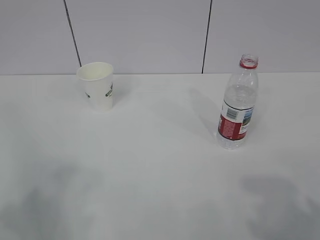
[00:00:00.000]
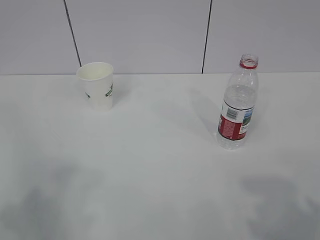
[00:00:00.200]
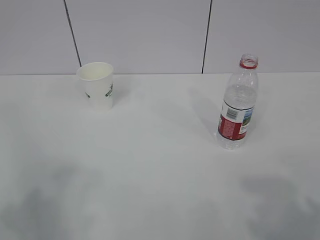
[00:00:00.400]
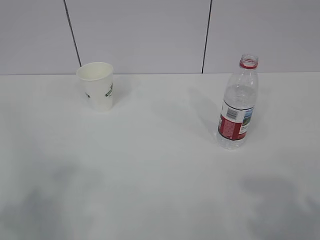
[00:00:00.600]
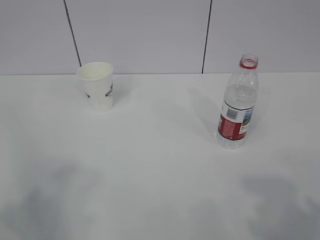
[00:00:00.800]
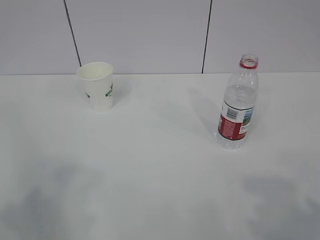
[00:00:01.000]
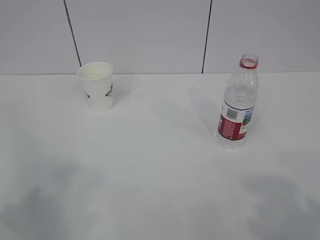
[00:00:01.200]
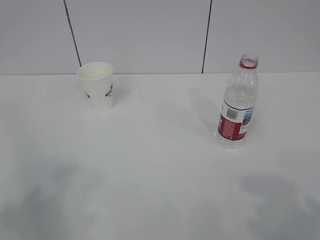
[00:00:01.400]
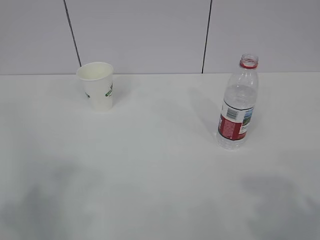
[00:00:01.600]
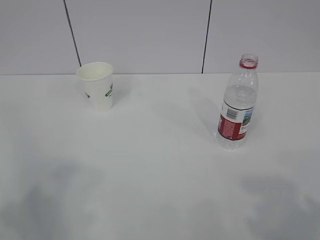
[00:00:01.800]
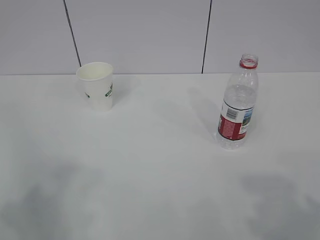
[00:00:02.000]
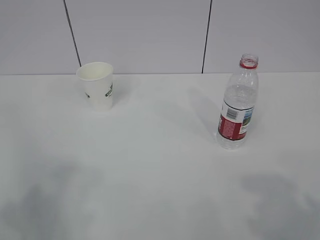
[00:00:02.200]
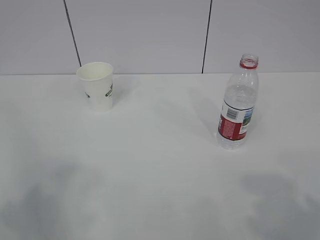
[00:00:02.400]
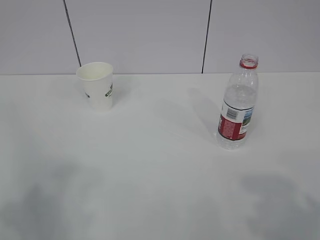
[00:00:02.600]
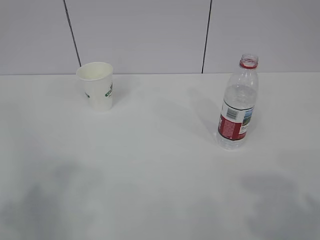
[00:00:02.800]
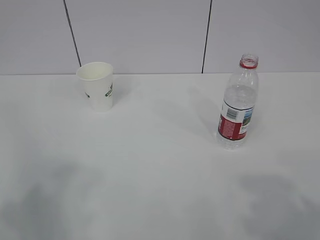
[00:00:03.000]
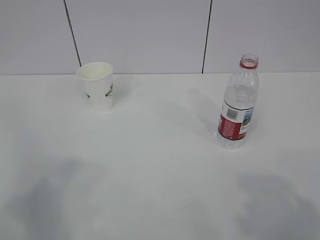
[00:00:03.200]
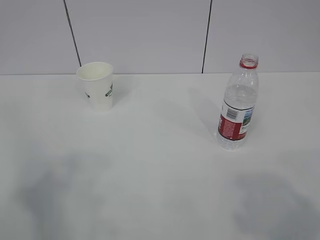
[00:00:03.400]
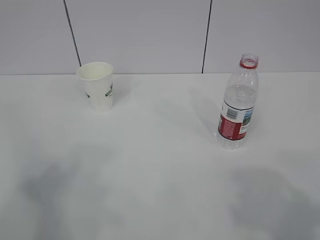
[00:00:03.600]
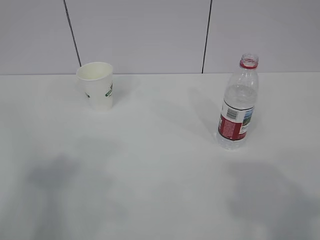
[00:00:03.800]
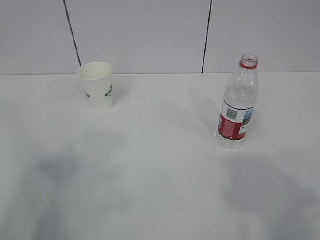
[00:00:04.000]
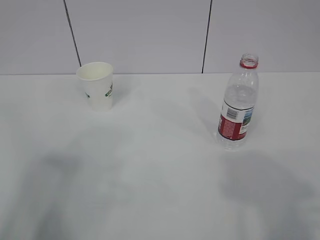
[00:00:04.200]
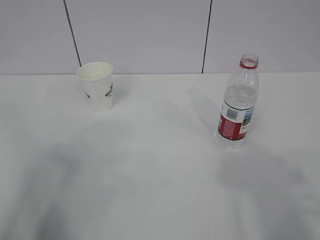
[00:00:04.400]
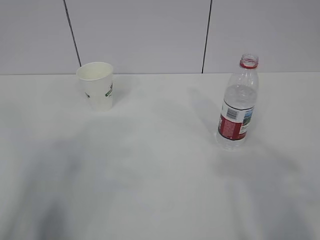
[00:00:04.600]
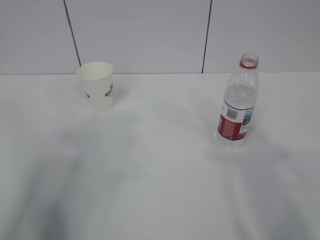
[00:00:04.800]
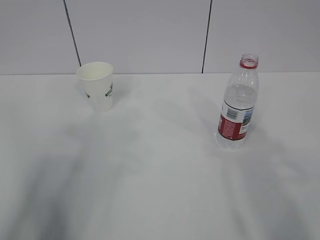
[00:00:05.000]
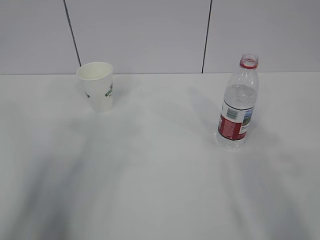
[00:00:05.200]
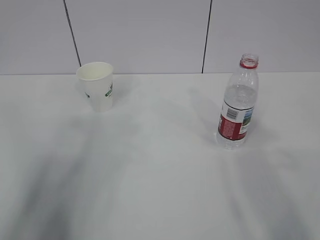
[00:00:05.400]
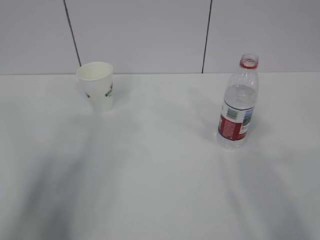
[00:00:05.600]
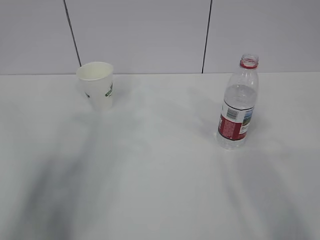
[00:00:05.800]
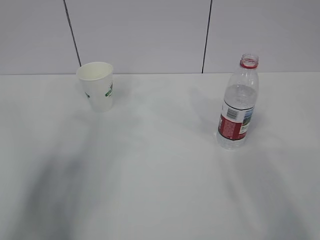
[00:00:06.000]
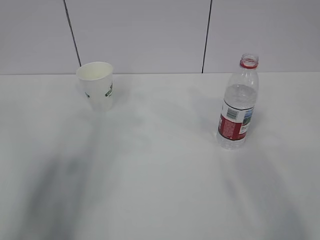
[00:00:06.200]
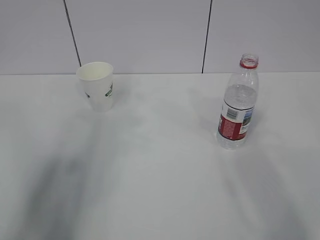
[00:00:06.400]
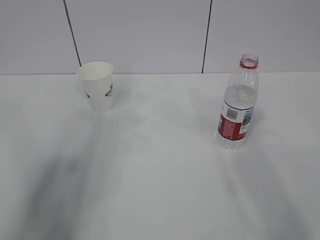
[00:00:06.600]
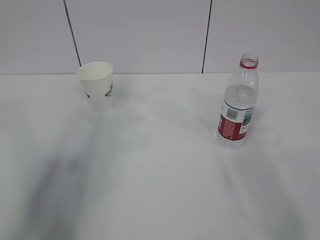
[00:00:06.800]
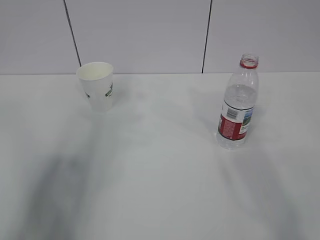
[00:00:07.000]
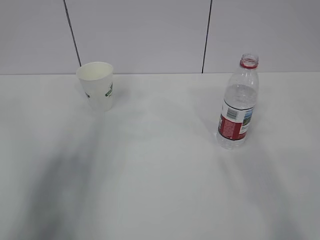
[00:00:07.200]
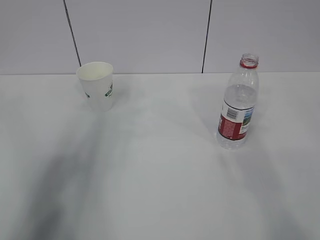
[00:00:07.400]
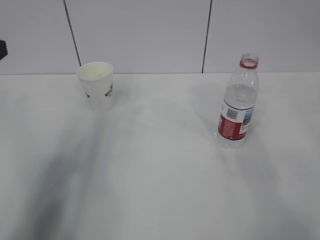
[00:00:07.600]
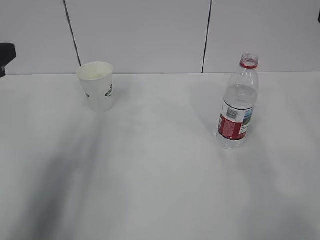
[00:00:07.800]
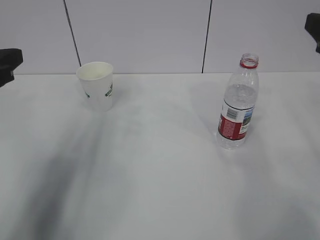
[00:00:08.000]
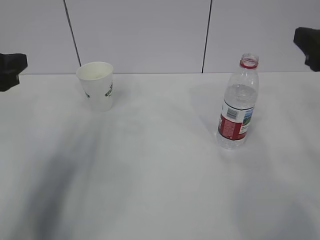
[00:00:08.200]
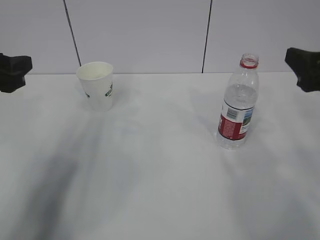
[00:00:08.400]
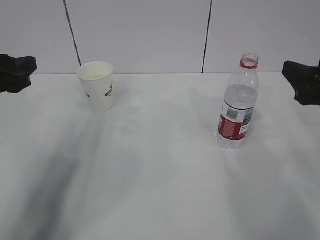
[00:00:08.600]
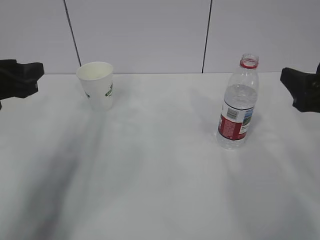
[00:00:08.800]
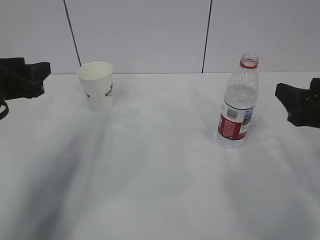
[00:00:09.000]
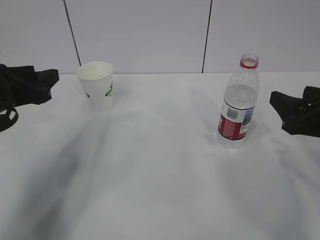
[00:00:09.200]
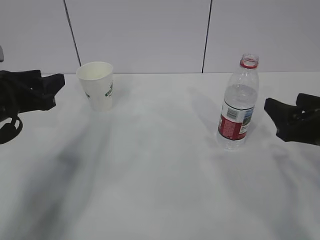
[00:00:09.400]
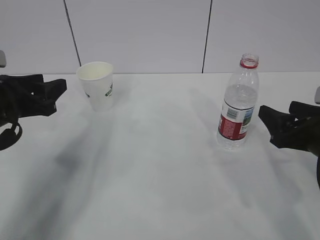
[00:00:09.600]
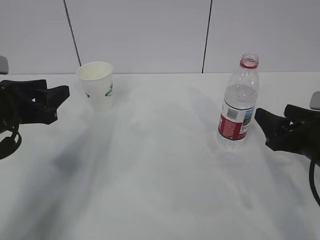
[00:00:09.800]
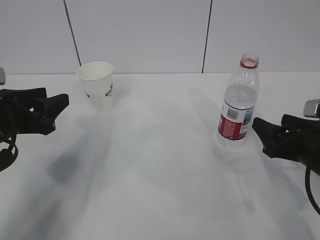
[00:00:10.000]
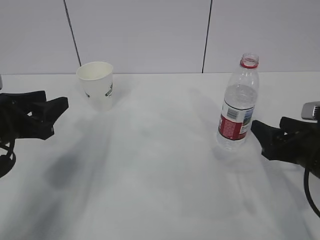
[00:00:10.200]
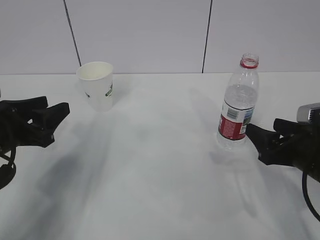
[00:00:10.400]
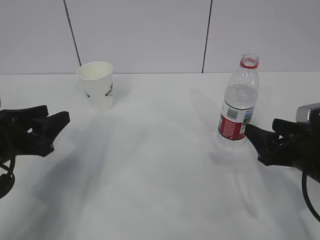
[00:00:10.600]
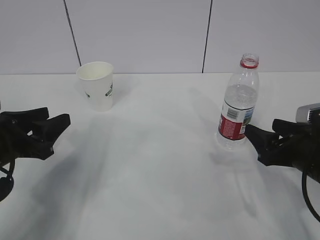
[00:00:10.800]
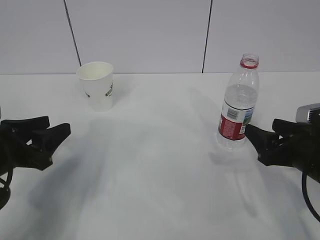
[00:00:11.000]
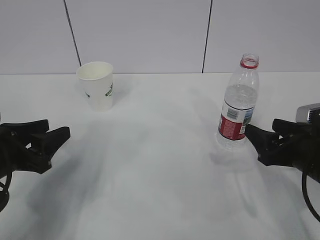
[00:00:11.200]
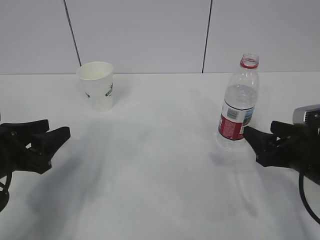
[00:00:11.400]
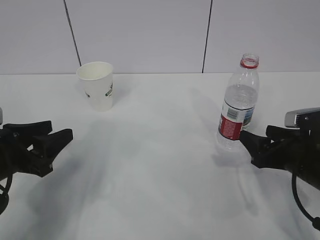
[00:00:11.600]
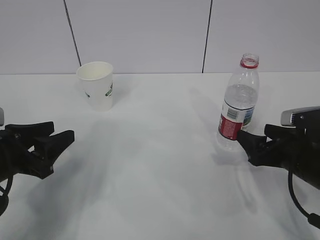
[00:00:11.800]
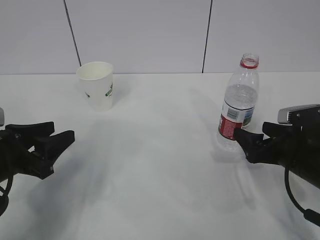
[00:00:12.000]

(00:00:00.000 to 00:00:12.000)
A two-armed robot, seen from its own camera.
00:00:01.600 - 00:00:03.000: The two grippers keep their place.
00:00:06.000 - 00:00:07.600: The left gripper moves forward, approximately 5 cm.
00:00:07.600 - 00:00:09.000: The left gripper shifts some 10 cm downward and forward; the right gripper is displaced downward by approximately 10 cm.
00:00:09.000 - 00:00:10.400: Both grippers travel together downward, roughly 5 cm.
00:00:10.400 - 00:00:12.000: The right gripper opens up.

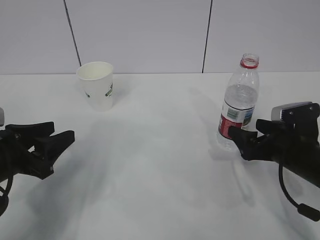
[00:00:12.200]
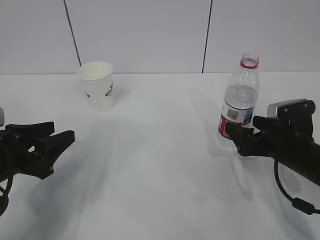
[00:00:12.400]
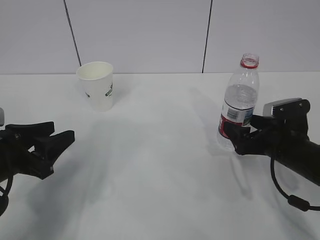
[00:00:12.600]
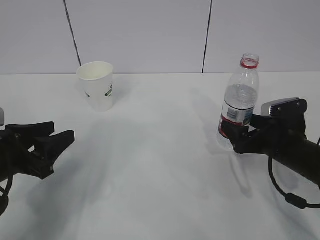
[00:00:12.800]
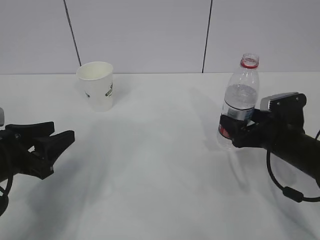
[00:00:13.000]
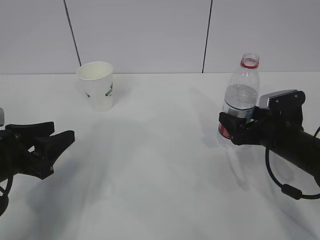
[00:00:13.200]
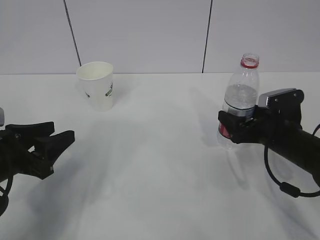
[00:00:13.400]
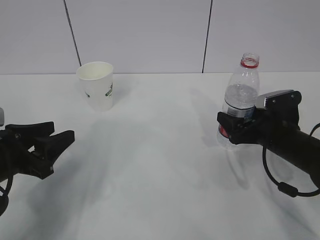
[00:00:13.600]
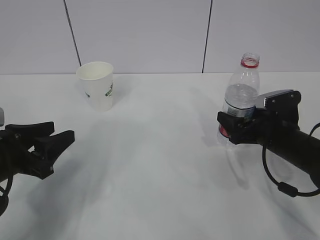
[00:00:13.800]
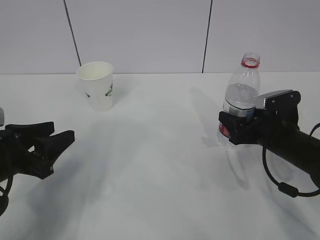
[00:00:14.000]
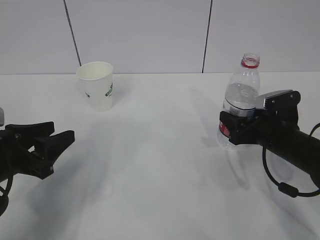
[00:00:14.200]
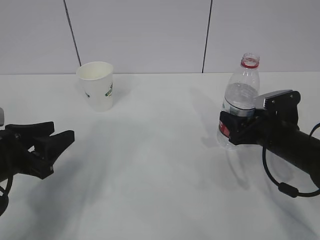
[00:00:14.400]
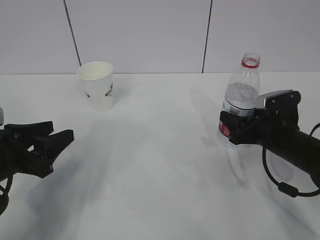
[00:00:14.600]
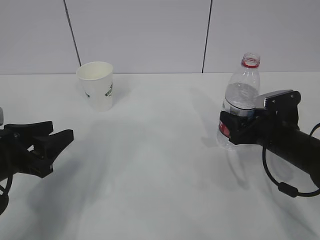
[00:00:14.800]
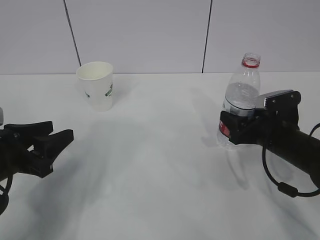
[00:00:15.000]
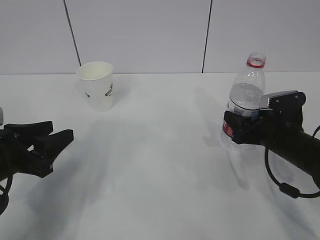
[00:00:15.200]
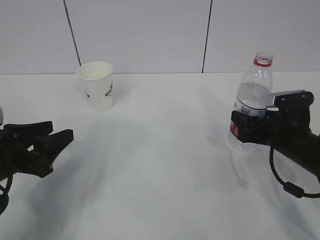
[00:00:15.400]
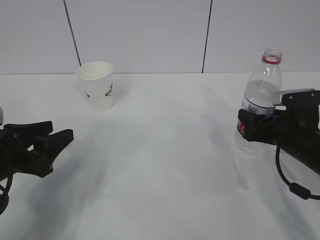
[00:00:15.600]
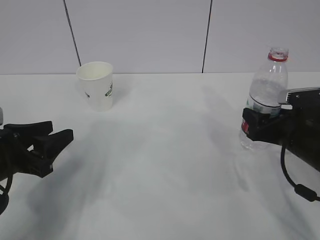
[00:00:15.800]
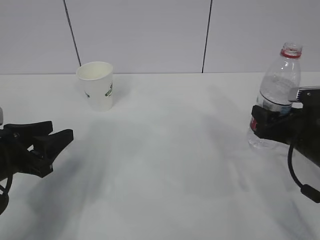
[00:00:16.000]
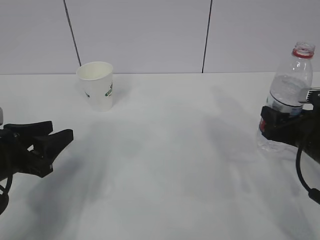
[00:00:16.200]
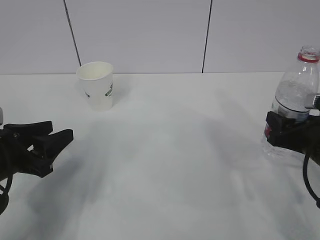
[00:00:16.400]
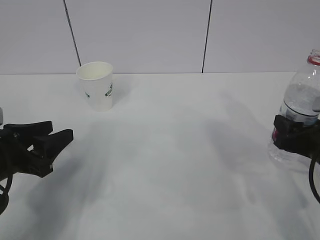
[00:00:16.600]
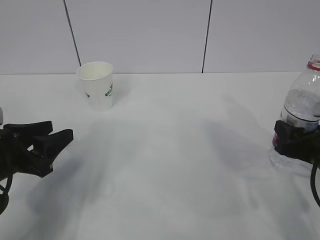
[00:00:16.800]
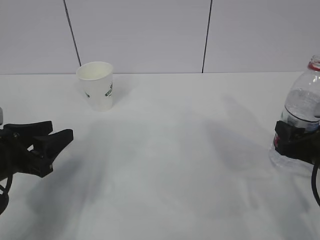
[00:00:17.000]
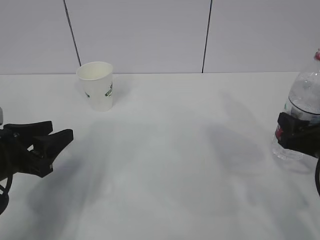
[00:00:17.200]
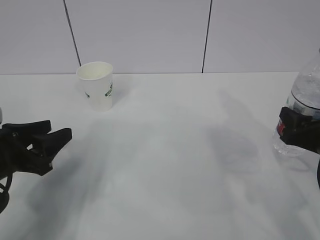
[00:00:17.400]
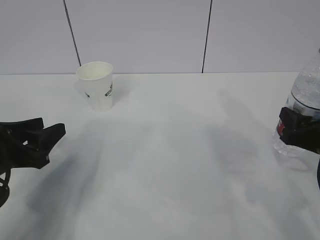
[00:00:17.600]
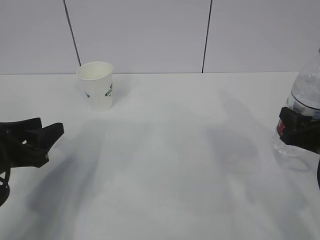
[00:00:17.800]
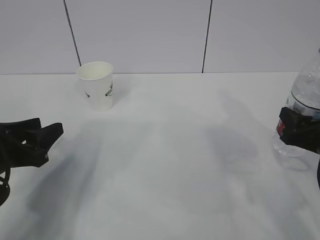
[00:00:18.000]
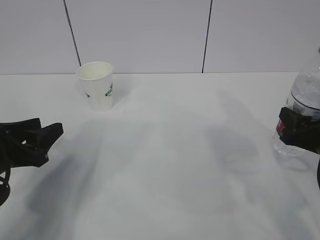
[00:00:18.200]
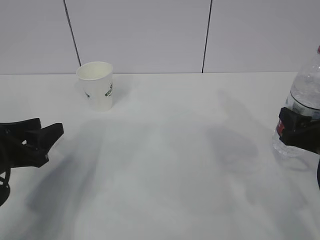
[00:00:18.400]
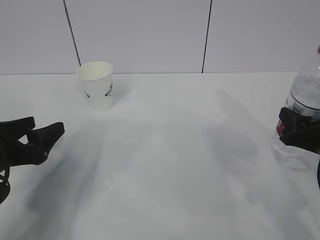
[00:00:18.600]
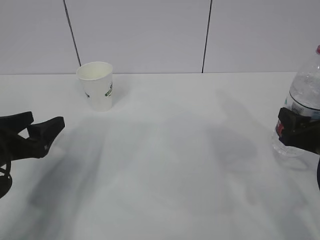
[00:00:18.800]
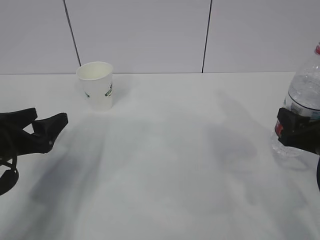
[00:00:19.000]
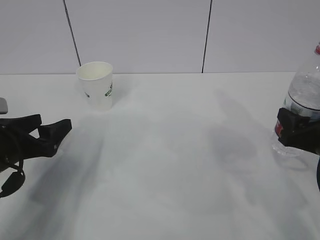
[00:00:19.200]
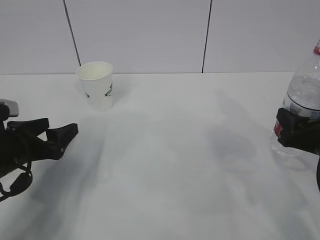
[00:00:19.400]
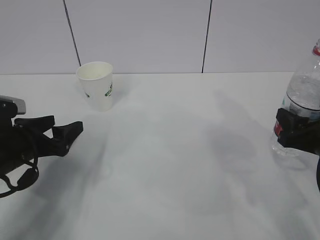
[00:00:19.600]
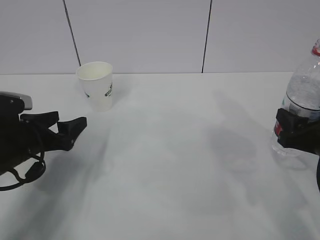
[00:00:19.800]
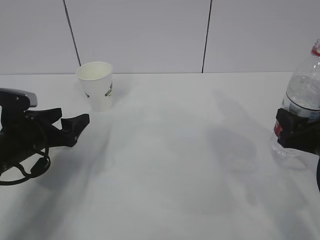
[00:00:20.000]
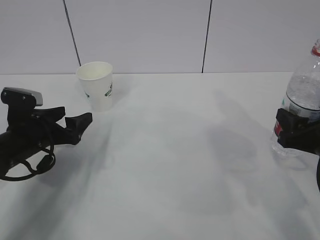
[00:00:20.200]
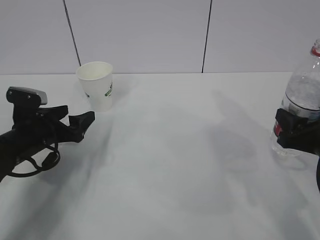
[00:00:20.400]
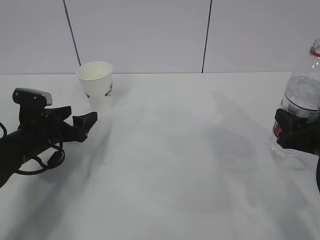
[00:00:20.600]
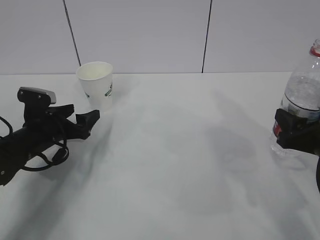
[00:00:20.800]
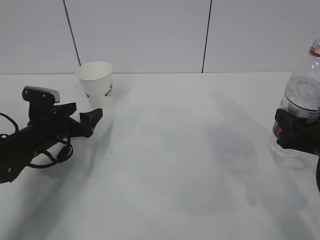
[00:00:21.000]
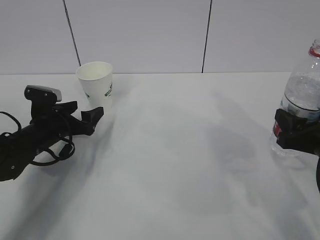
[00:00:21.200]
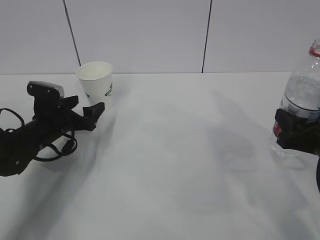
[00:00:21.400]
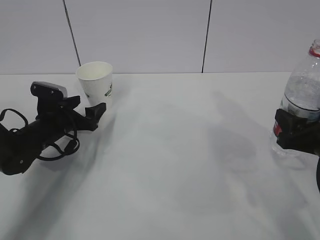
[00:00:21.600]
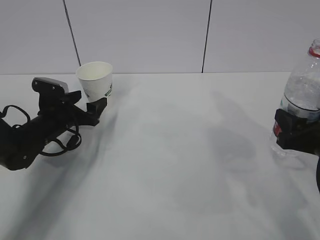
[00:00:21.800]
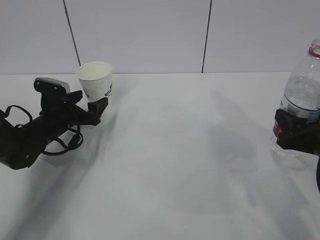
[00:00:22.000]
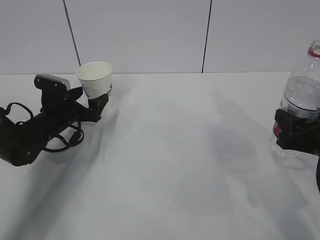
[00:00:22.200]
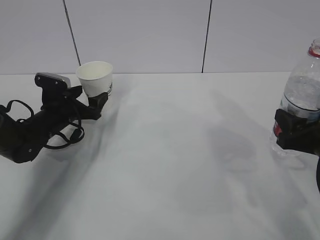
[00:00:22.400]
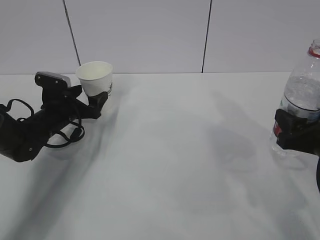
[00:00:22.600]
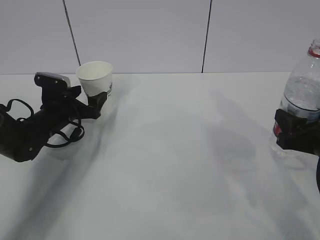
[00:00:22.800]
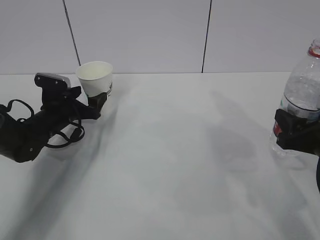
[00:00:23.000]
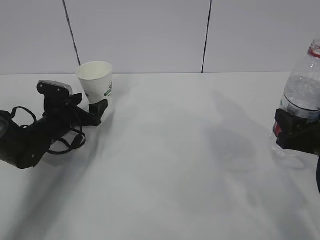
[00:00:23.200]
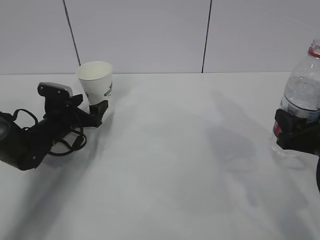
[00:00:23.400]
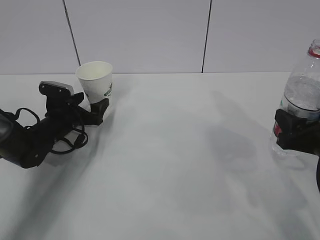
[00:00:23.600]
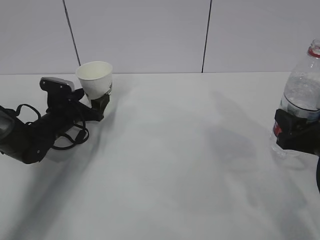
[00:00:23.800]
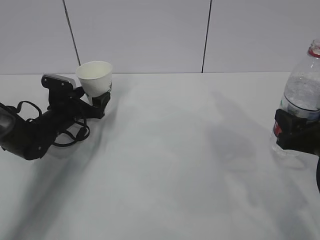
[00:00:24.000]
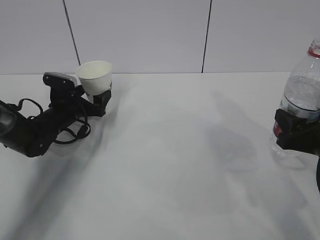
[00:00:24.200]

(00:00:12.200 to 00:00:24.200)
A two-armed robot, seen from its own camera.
00:00:12.200 - 00:00:13.800: The grippers make only small movements.
00:00:13.800 - 00:00:15.200: The right gripper closes its fingers.
00:00:15.200 - 00:00:16.600: The right gripper is displaced backward by about 5 cm.
00:00:16.600 - 00:00:18.200: The grippers move only a little.
00:00:18.200 - 00:00:19.800: The left gripper is displaced forward by roughly 5 cm, and opens.
00:00:19.800 - 00:00:21.200: The left gripper goes some 10 cm forward.
00:00:21.200 - 00:00:22.600: There are only small adjustments of the grippers.
00:00:22.600 - 00:00:24.200: The grippers make only small movements.
